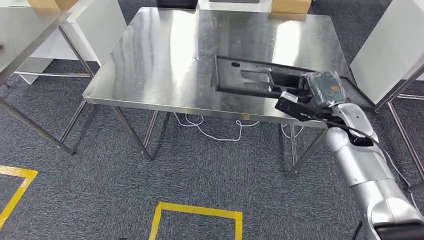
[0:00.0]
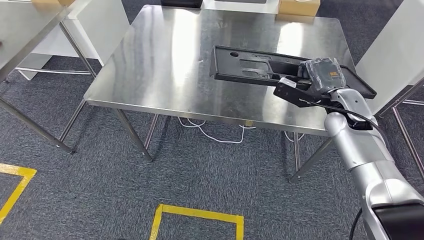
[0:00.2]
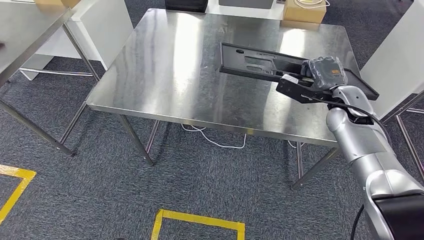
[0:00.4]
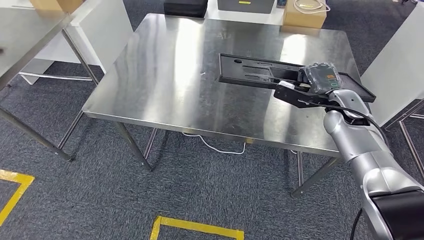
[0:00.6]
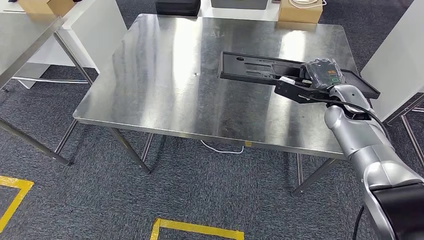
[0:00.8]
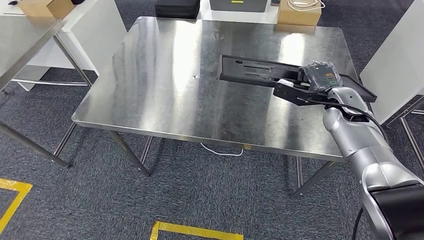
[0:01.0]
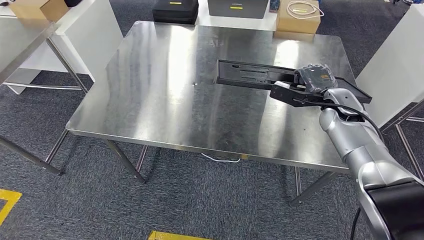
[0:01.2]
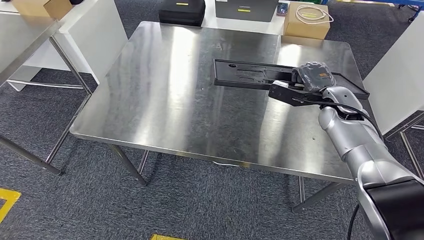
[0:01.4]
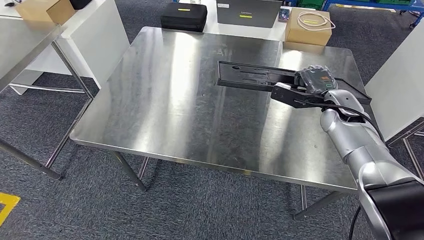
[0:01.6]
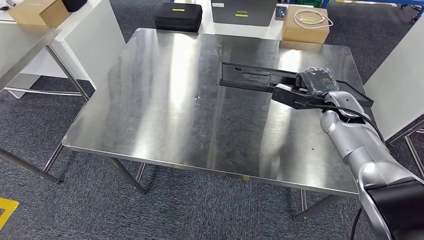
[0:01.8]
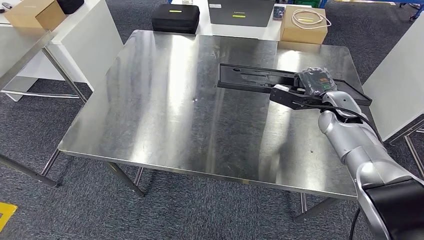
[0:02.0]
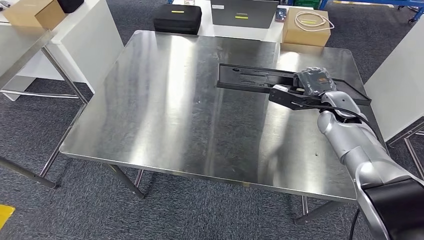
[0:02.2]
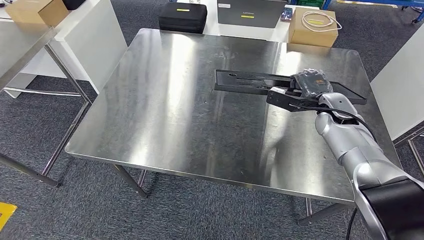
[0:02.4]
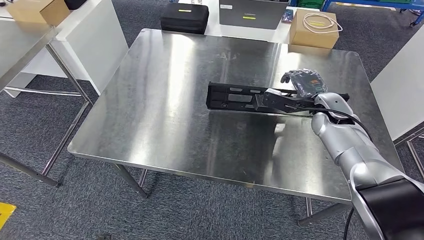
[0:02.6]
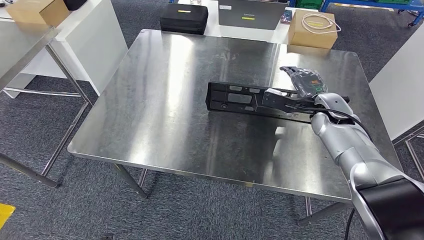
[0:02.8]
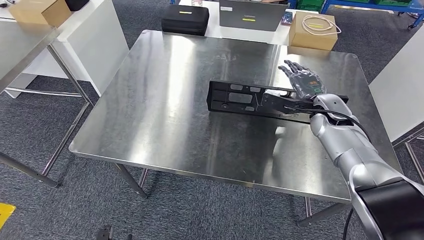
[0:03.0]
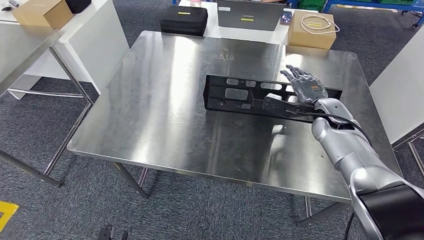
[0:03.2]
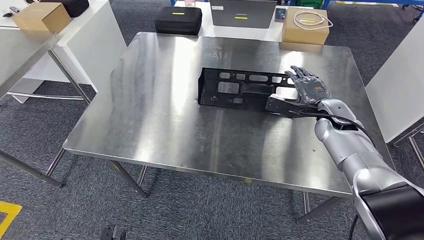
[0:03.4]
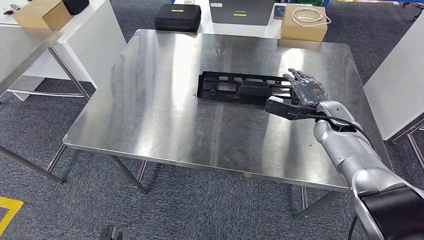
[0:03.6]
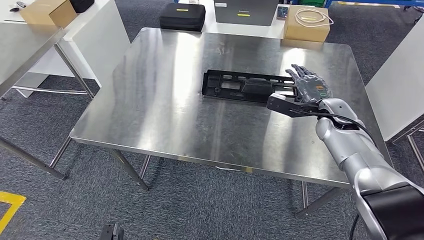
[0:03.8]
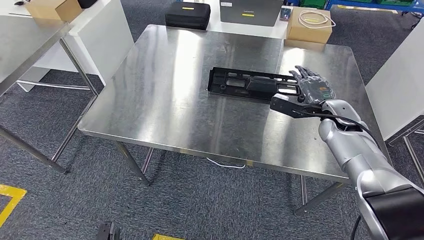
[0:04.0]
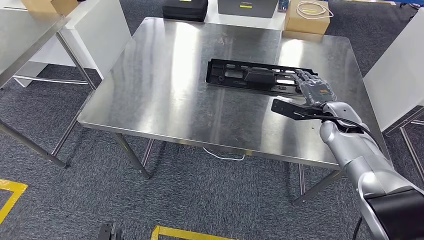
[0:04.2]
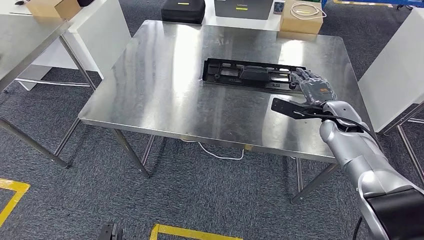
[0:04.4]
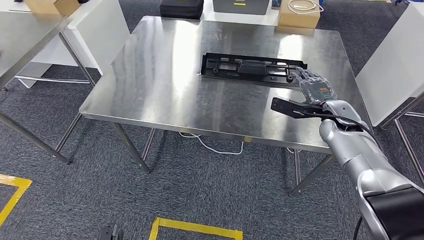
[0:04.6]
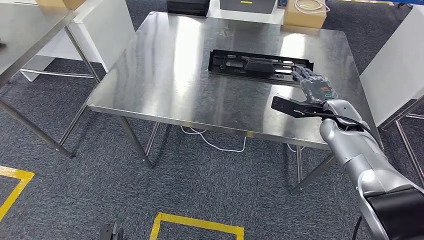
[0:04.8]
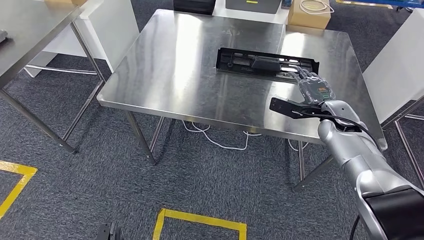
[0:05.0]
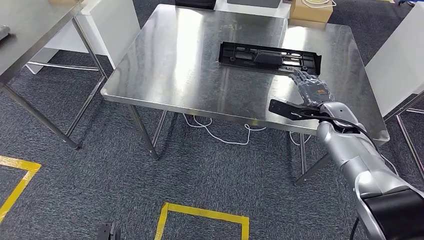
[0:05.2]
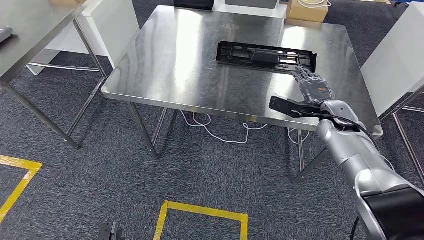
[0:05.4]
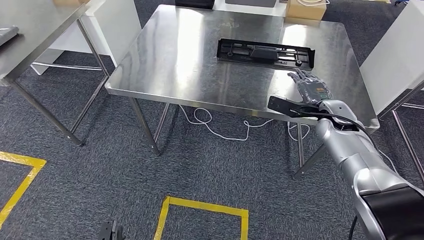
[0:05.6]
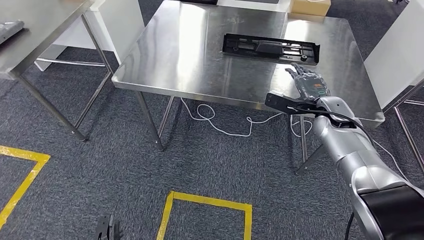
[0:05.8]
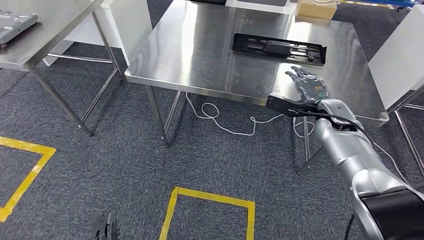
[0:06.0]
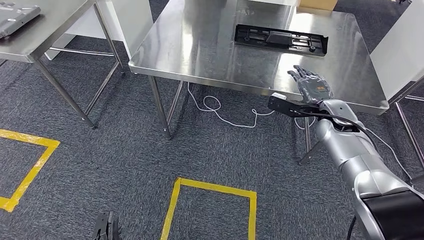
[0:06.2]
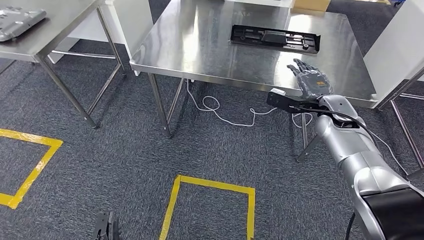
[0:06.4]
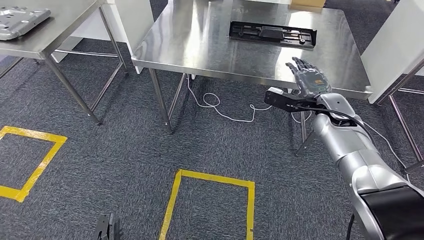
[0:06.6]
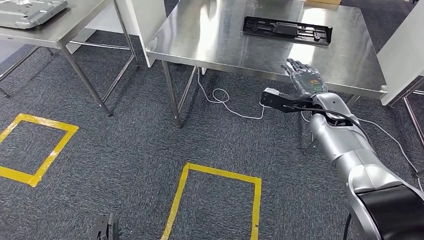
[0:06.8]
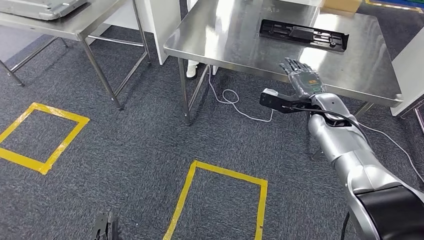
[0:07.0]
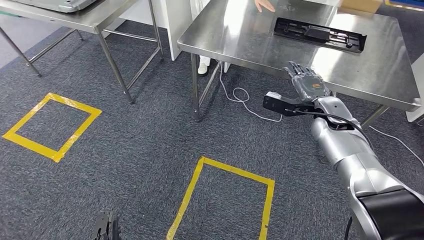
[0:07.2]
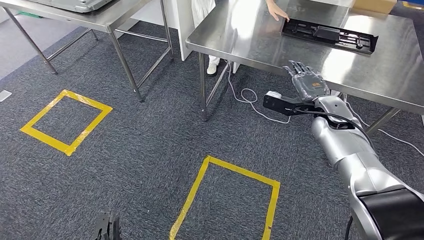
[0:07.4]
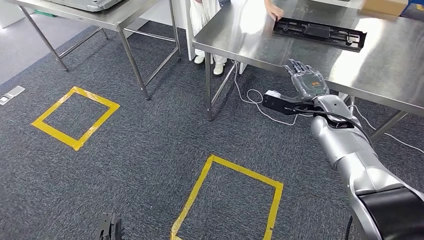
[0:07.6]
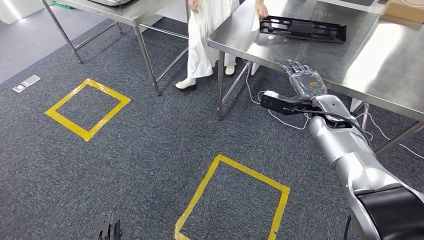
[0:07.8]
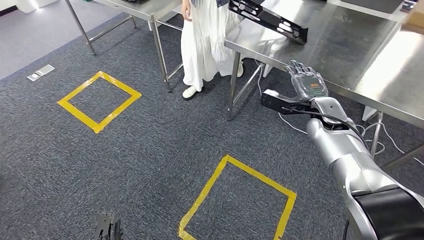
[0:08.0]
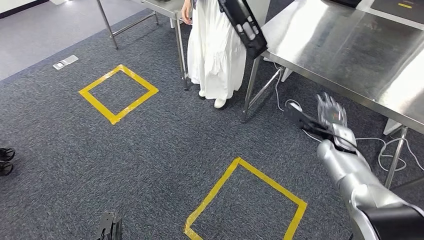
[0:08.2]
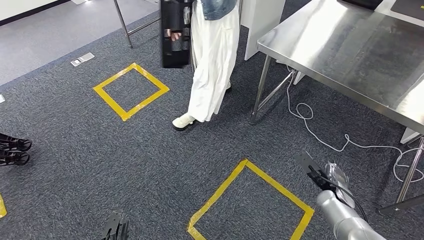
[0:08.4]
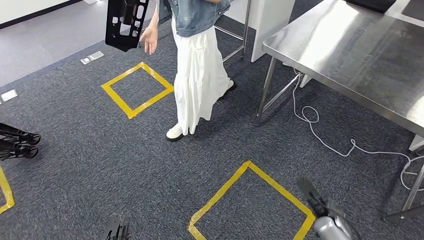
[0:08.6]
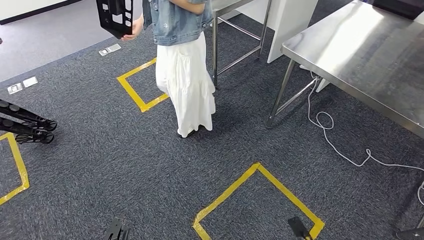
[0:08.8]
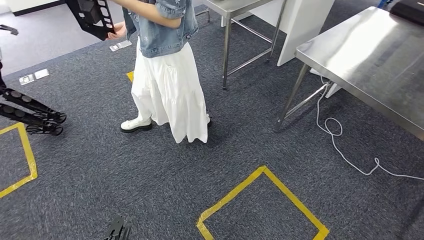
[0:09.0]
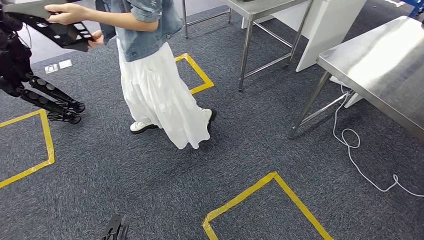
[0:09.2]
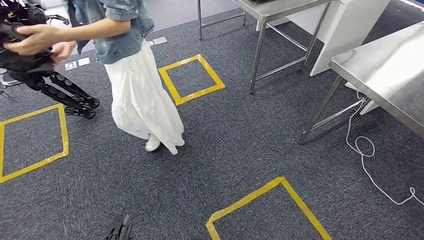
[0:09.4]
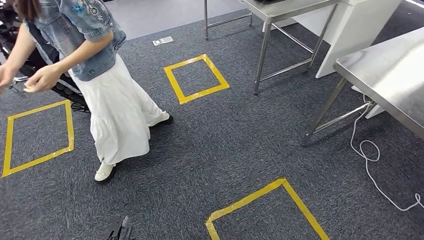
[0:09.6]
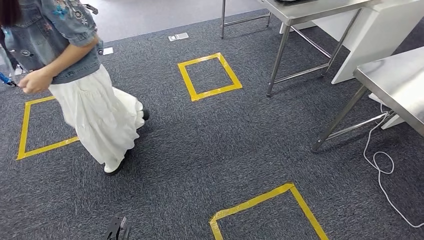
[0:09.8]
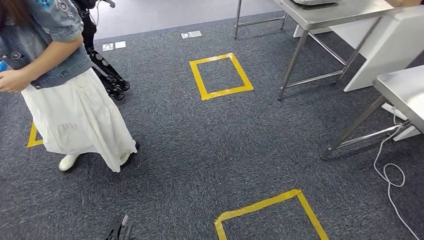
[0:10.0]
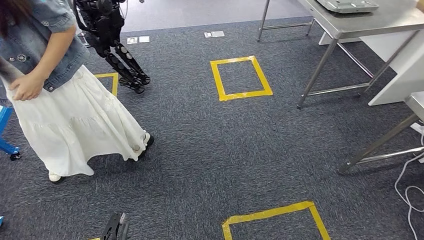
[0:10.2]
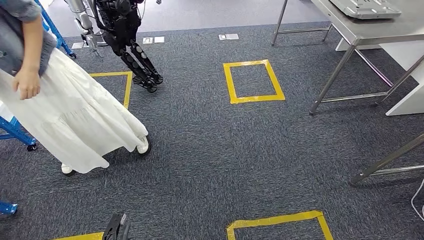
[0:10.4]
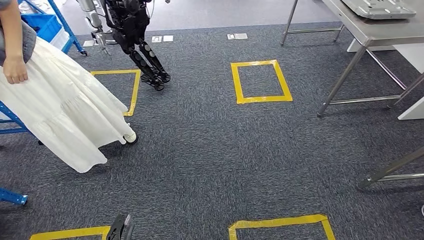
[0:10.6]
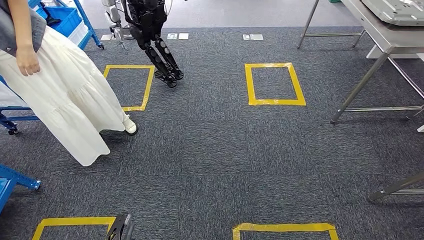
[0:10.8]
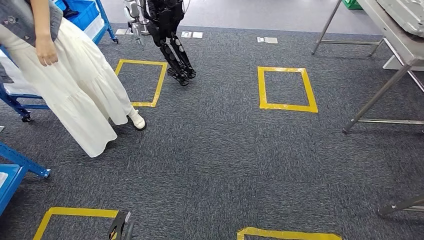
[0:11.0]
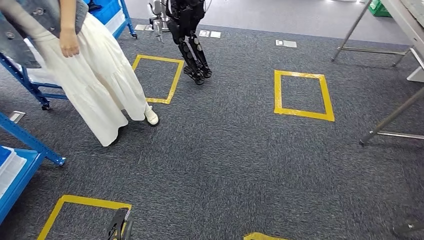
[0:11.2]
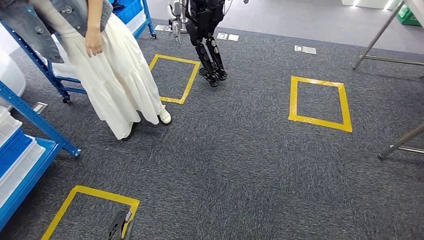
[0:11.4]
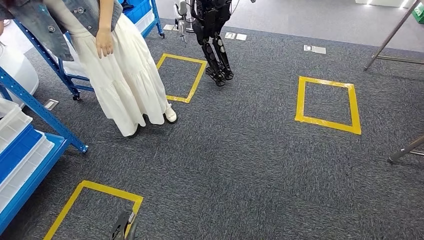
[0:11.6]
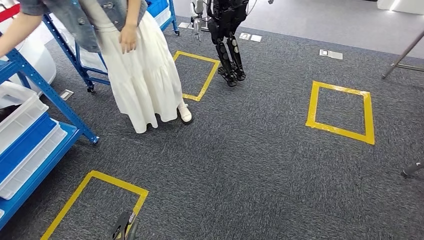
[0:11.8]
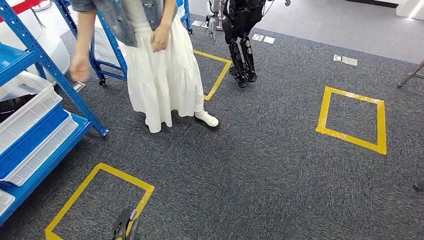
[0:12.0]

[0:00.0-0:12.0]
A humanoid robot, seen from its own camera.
Step, 0:00.0 to 0:03.2: Insert the large material into the corresponding slot on the workbench.

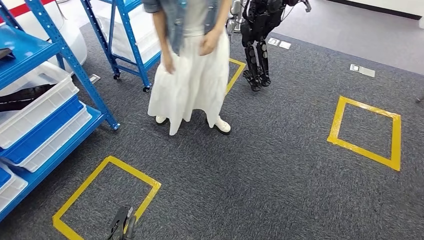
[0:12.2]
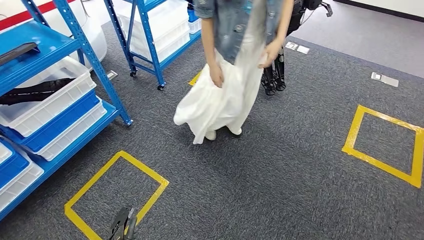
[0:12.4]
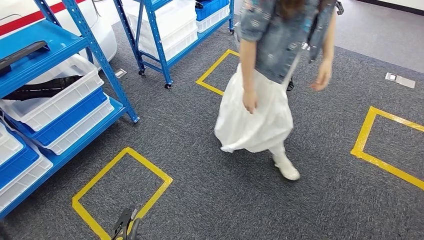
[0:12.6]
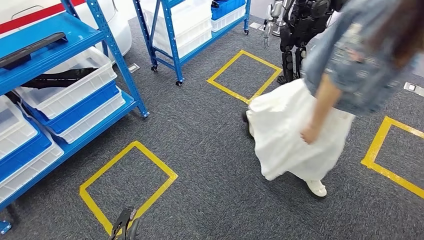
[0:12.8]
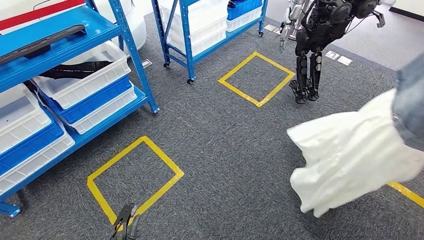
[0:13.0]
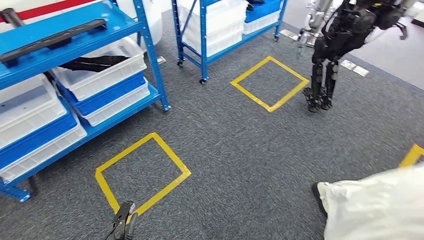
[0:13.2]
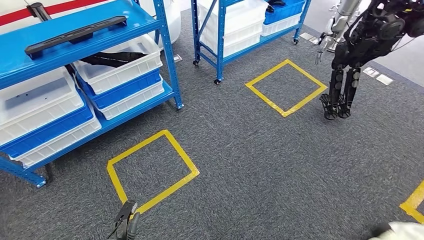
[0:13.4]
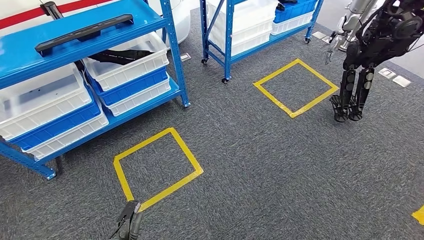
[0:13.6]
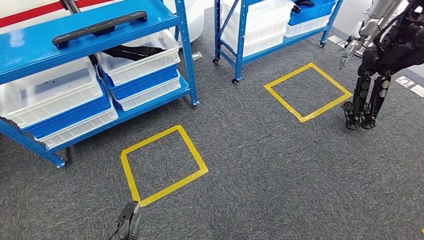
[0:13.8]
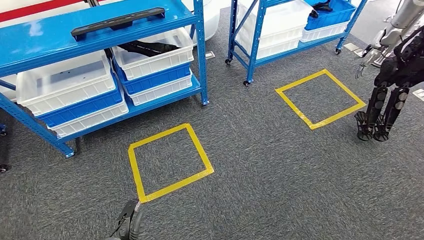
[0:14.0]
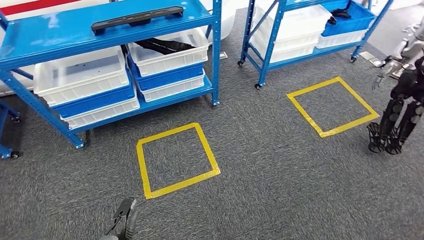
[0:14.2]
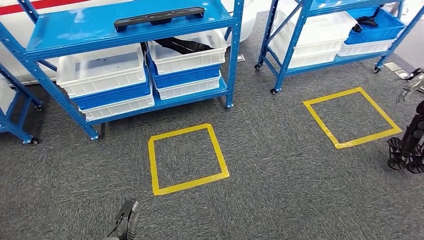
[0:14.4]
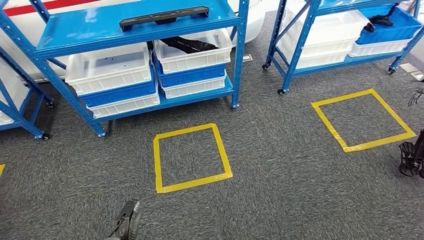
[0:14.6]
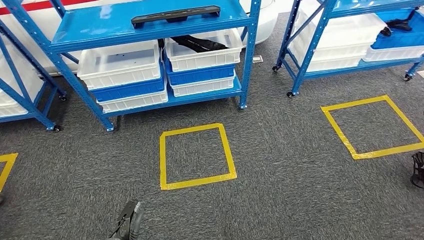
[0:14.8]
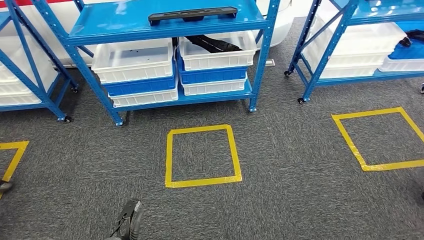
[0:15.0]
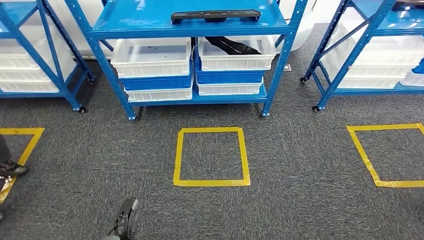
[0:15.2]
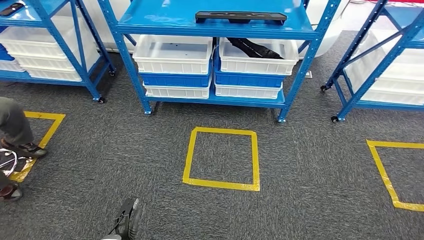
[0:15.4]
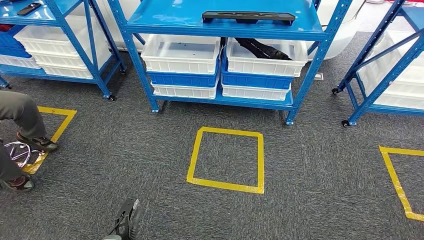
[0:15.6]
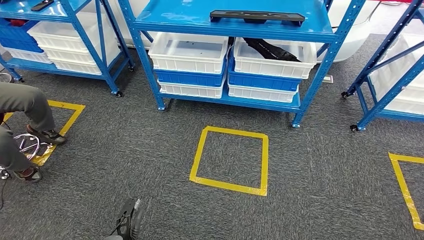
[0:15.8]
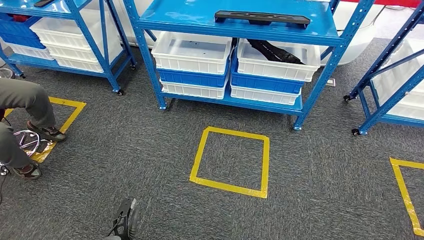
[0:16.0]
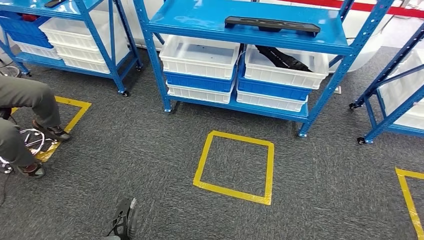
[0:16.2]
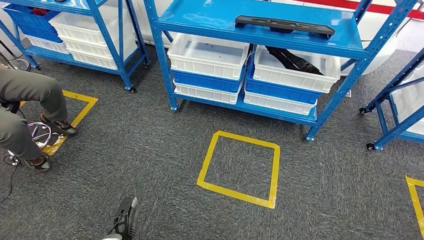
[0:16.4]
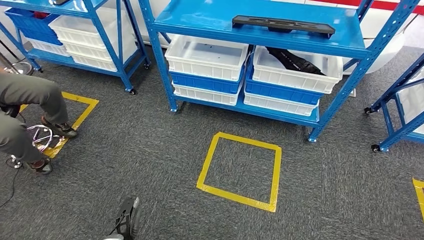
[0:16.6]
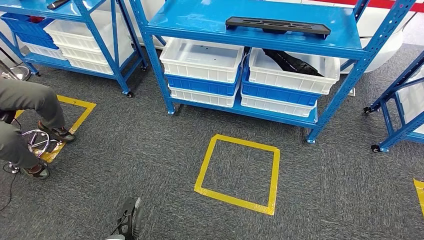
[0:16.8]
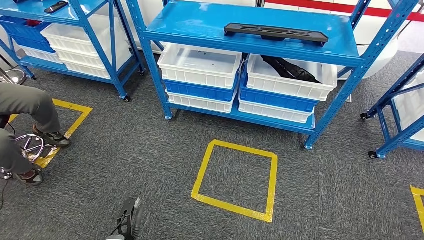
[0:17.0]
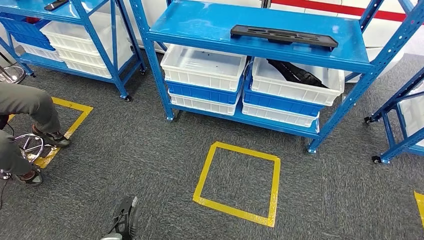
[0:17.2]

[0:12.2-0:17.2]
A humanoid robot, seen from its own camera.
Step, 0:12.2 to 0:17.2: Return to the initial position at the shelf.
